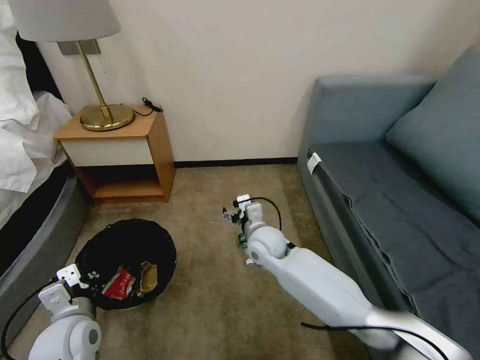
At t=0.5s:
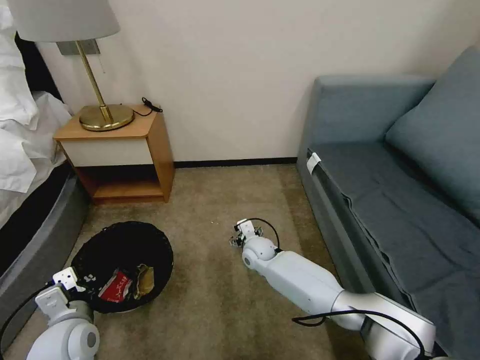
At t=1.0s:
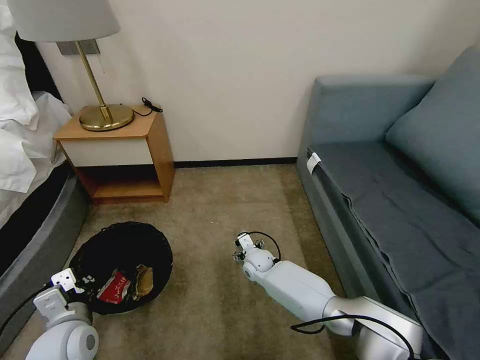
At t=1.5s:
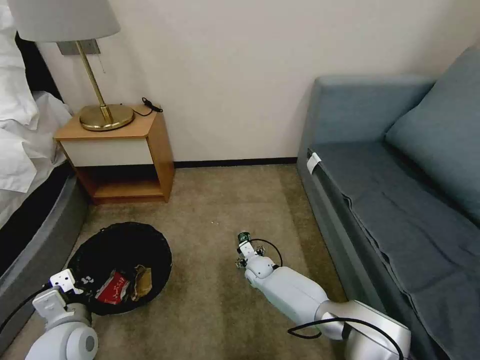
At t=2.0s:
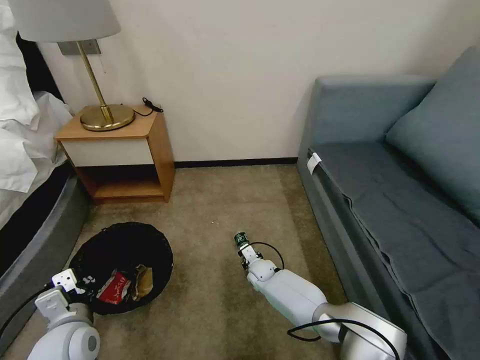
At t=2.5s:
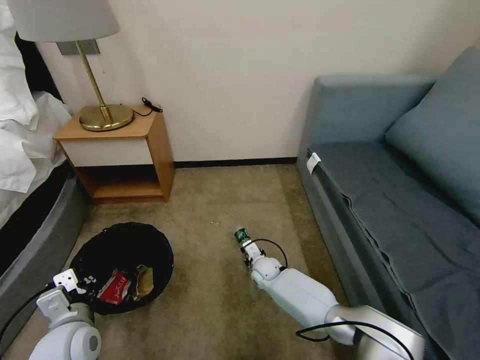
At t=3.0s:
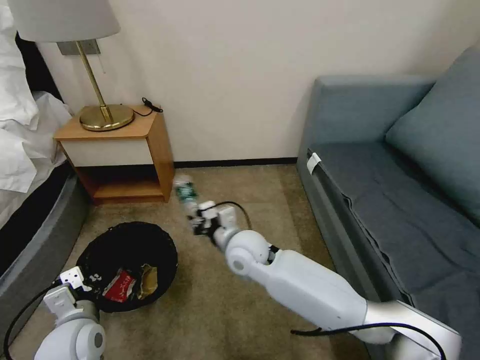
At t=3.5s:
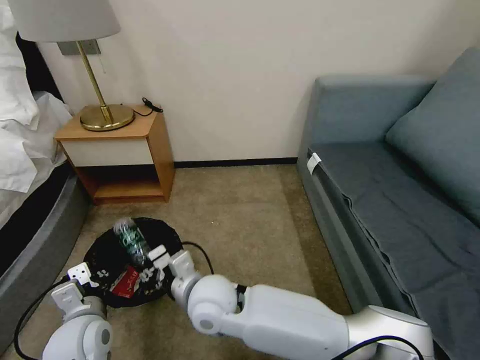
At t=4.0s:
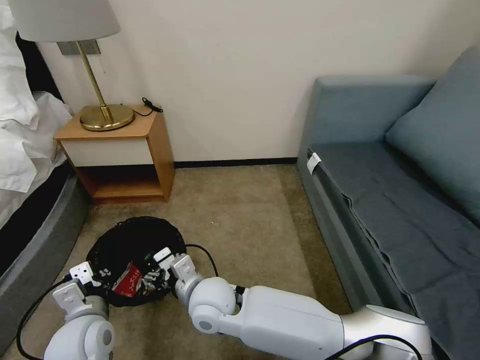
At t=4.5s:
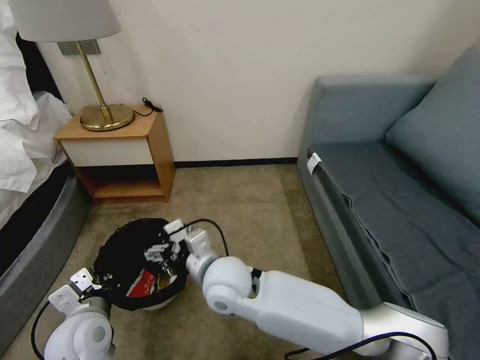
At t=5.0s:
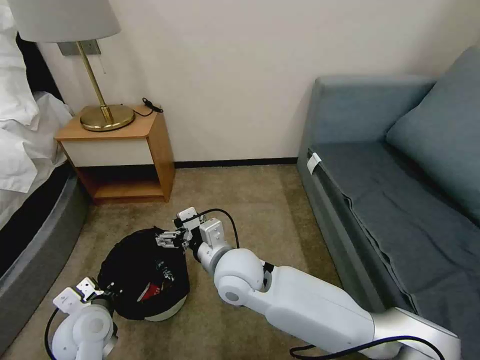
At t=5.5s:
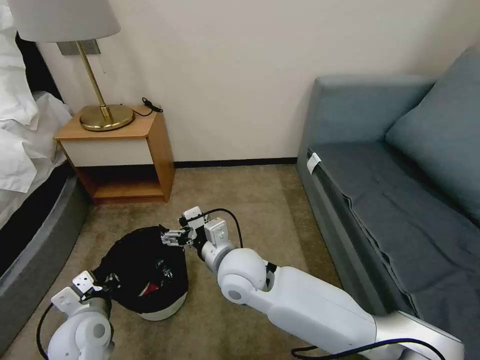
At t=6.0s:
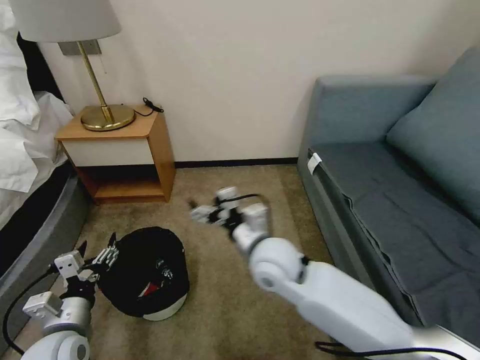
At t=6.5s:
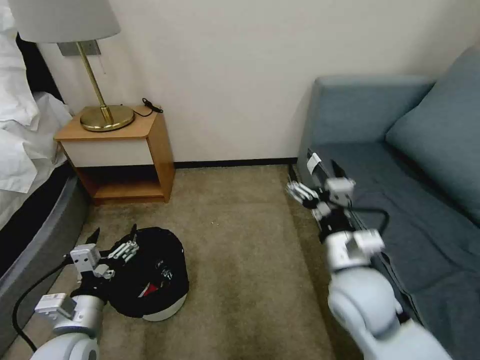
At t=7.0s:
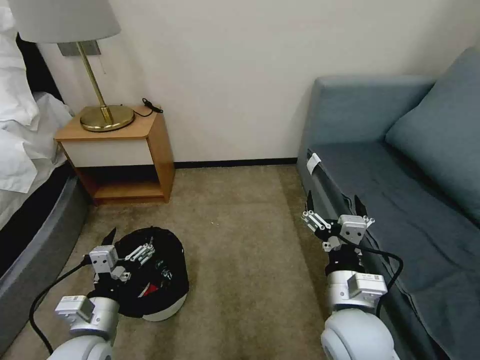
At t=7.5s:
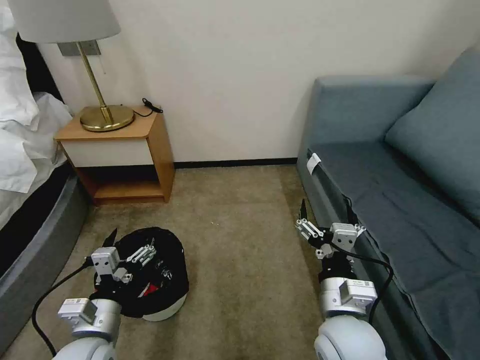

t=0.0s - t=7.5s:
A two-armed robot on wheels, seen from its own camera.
Task of the whole recording: Pick up the trash bin, then pick up the garbage on the floor and place it into the trash bin.
t=0.0s - t=2.0s: The right gripper travels downward by about 20 cm, and closes.
t=2.0s - t=4.0s: The right gripper shifts roughly 30 cm upward, backward and to the left.
t=4.0s - t=5.5s: The right gripper heads upward and to the right, covering some 10 cm.
t=5.5s - t=7.5s: The left gripper travels backward by about 5 cm, and opens up. Meanwhile the right gripper moves to the right and backward, roughly 20 cm.
